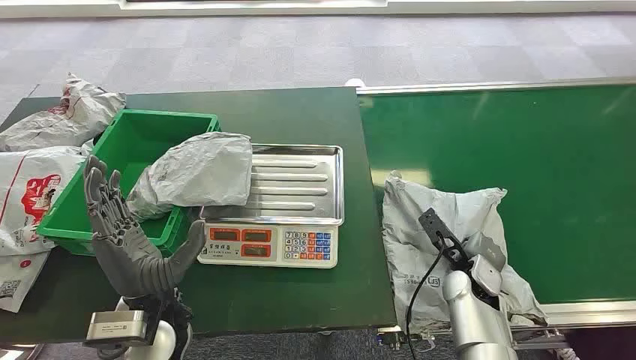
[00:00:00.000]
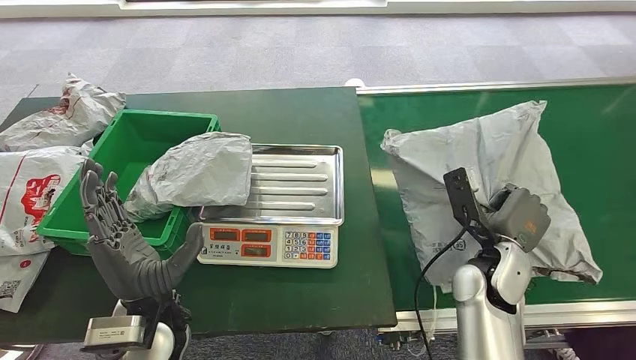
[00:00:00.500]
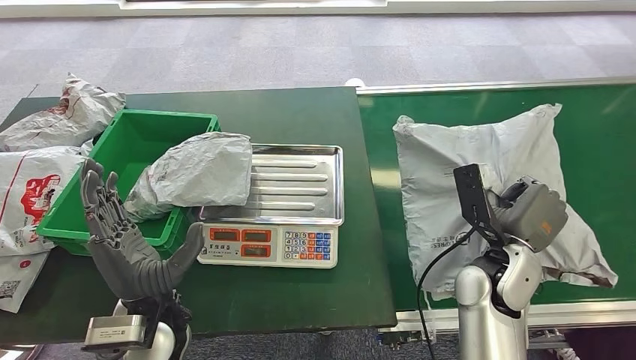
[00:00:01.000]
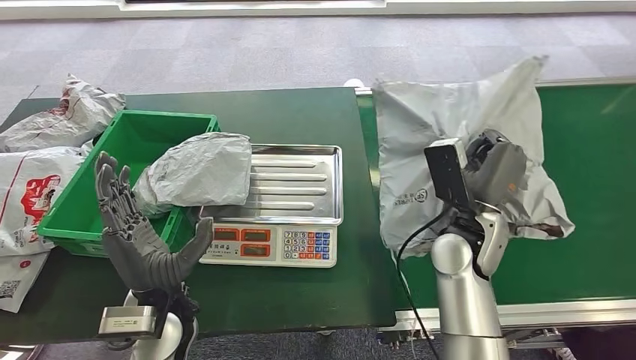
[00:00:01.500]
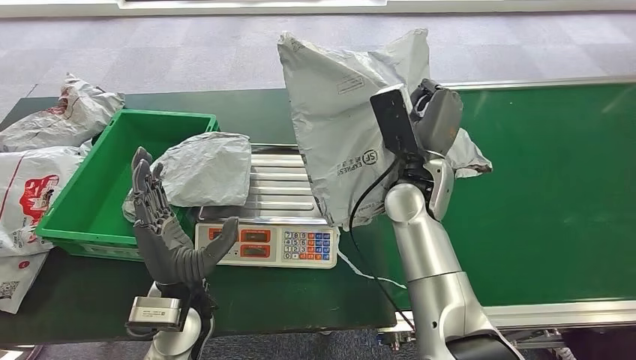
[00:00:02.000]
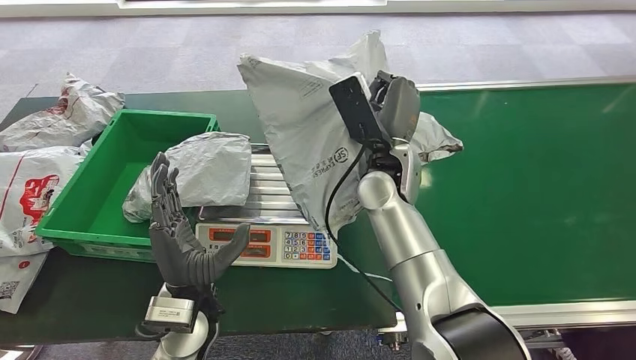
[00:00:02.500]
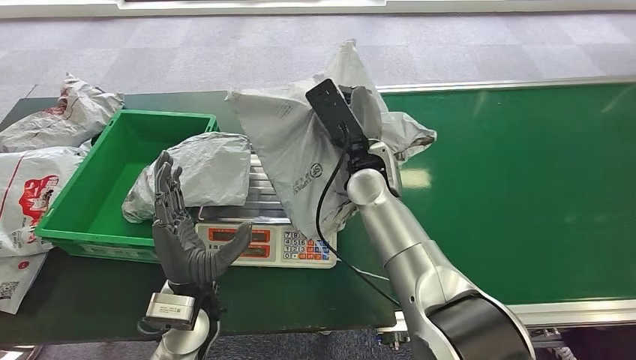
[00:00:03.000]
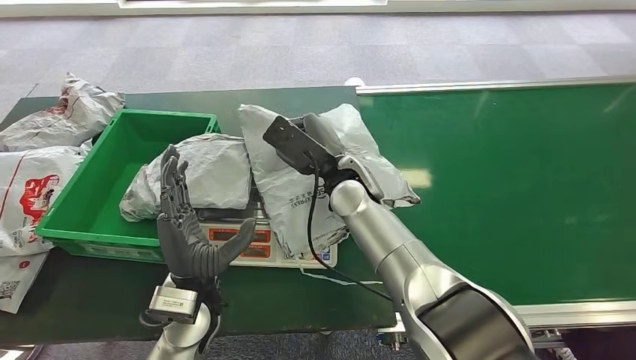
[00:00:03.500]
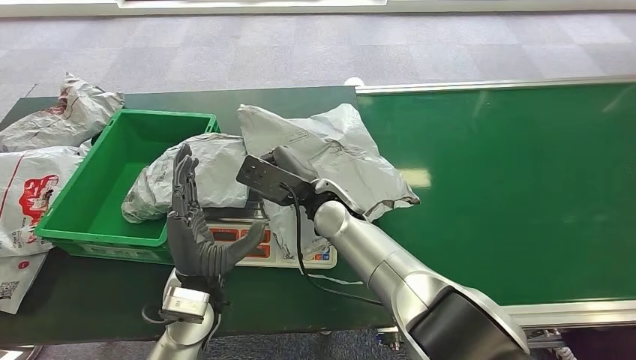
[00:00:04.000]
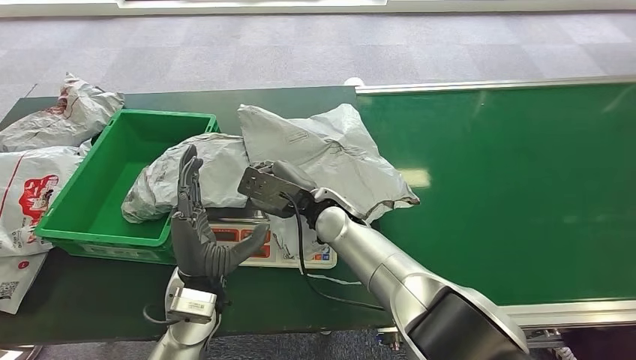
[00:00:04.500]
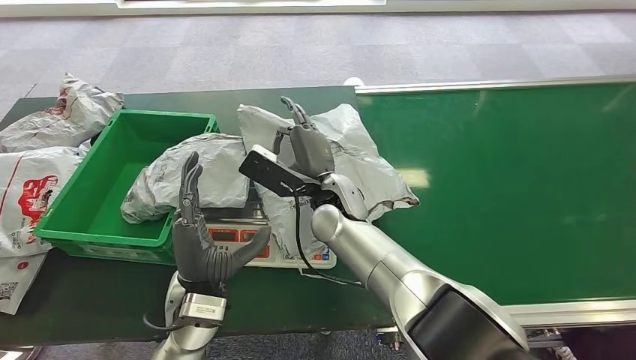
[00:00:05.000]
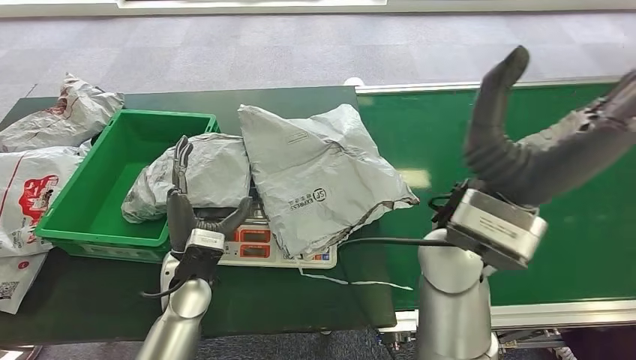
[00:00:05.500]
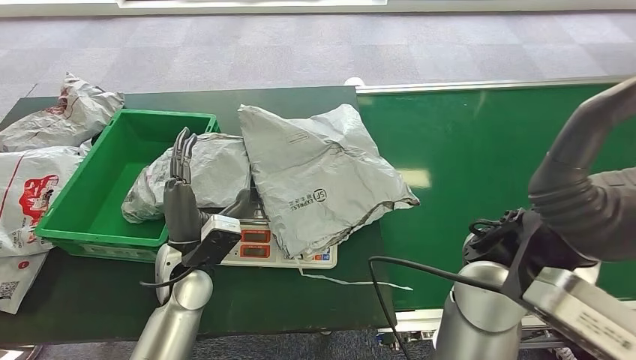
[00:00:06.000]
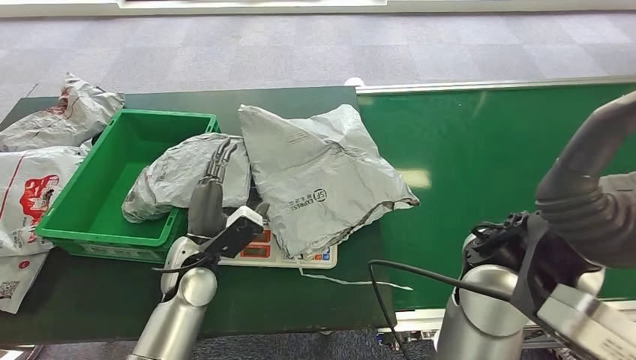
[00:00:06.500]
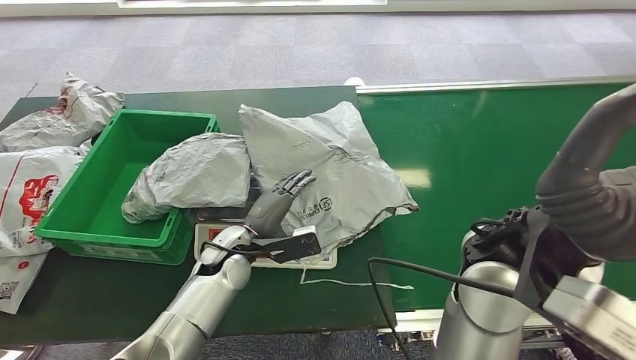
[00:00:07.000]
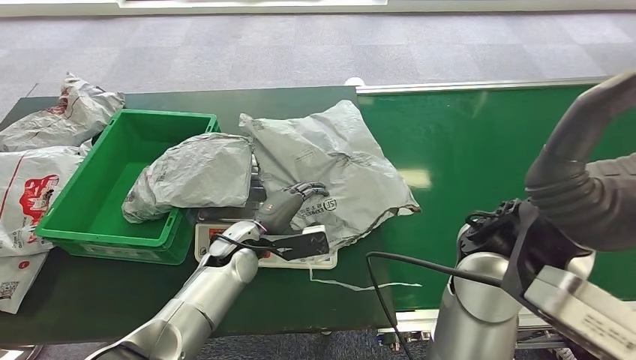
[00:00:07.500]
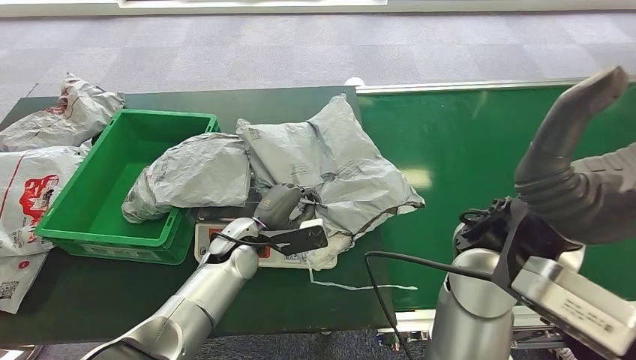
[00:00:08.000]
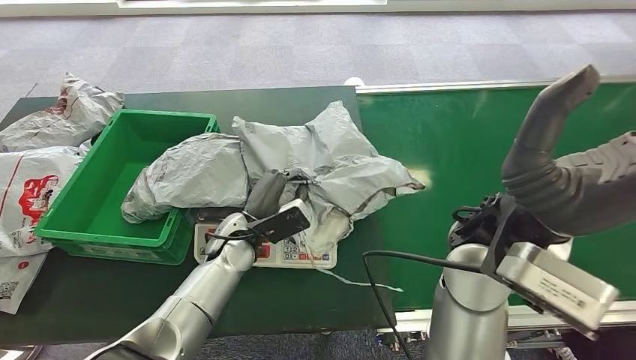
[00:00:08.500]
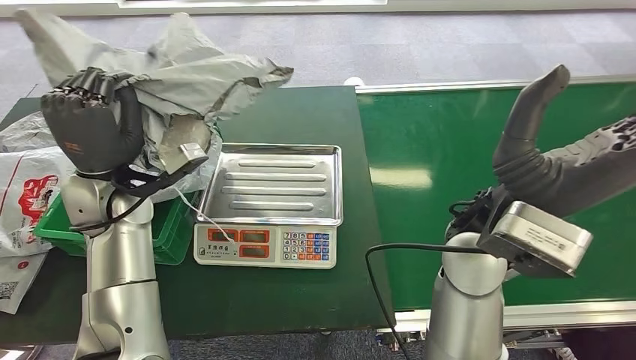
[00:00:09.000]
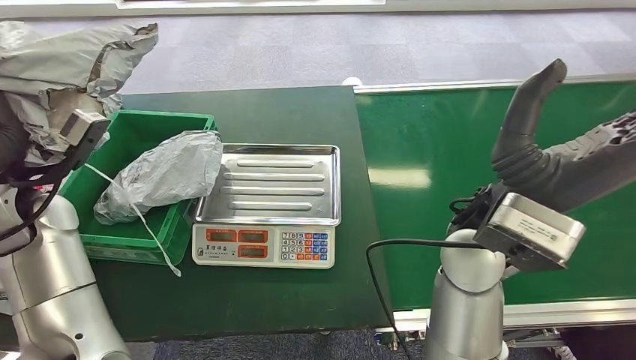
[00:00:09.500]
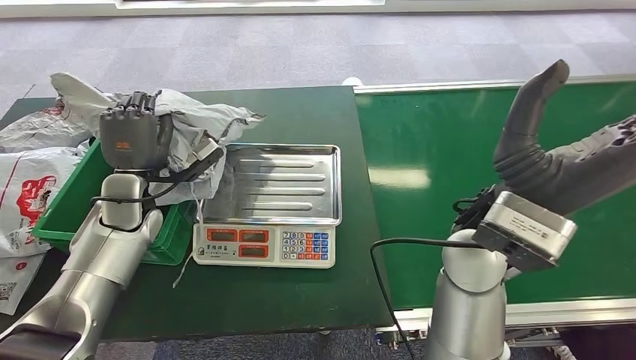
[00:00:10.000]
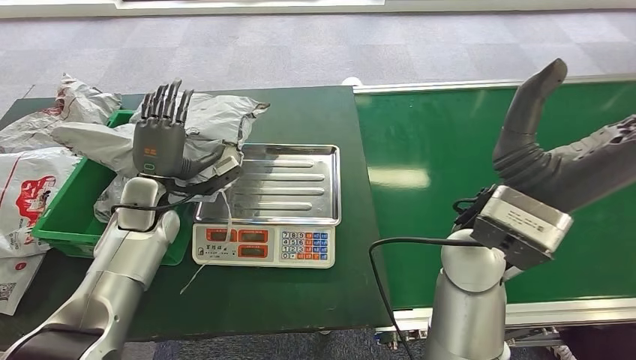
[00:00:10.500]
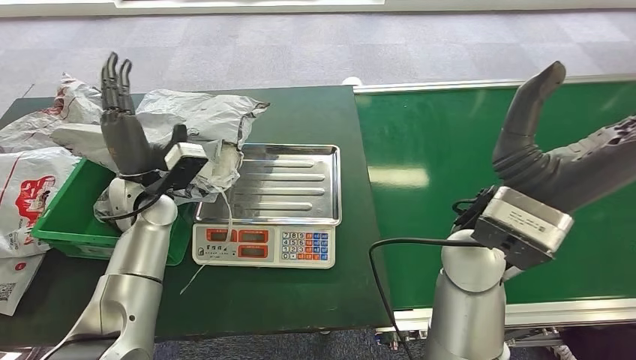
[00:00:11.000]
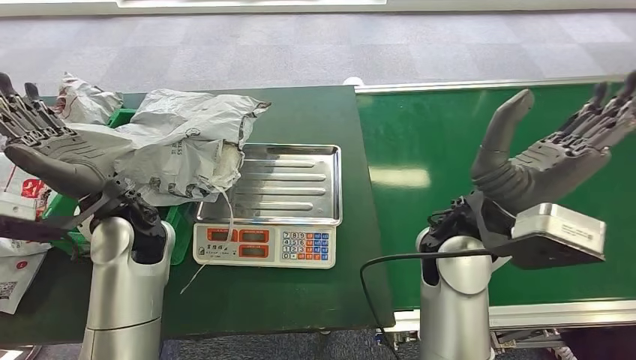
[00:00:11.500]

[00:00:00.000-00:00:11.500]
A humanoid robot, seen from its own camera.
Step, 00:00:00.000 to 00:00:01.500: Pick up the package from the conveyor belt.
Step, 00:00:02.000 to 00:00:04.500: Place the package onto the inbound machine.
Step, 00:00:05.000 to 00:00:09.000: Pick up the package from the inbound machine.
Step, 00:00:09.500 to 00:00:11.500: Place the package into the parcel locker.
00:00:04.000 to 00:00:06.000: The right hand travels upward, to the right and backward by about 25 cm, while the left hand moves some 5 cm.
00:00:06.000 to 00:00:07.500: The left hand shifts about 10 cm to the right and forward.
